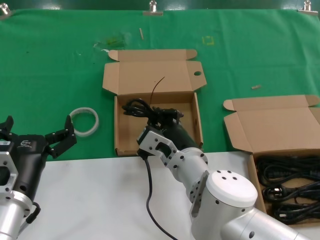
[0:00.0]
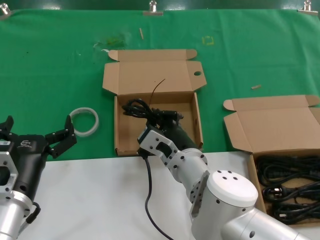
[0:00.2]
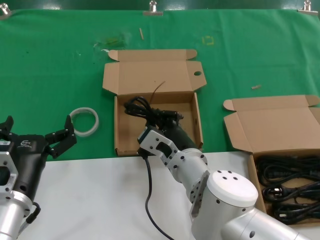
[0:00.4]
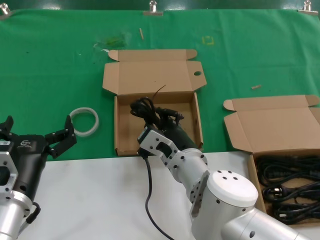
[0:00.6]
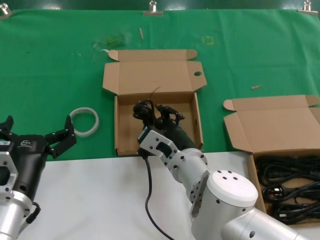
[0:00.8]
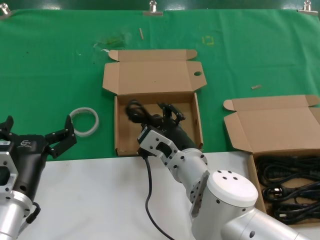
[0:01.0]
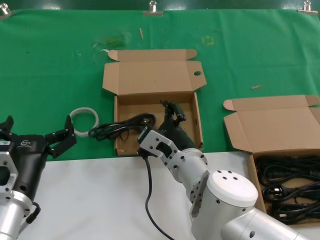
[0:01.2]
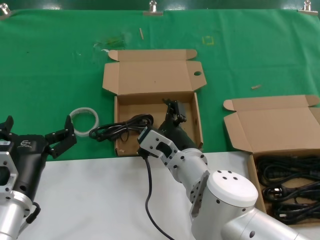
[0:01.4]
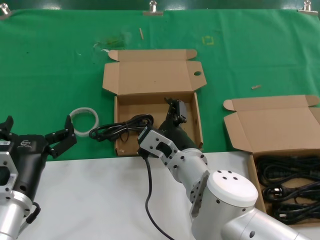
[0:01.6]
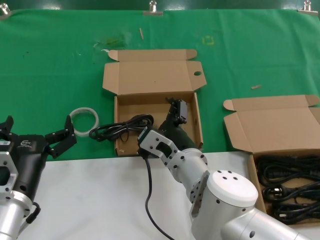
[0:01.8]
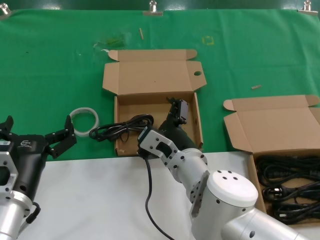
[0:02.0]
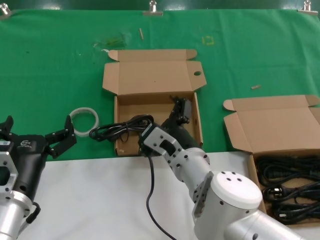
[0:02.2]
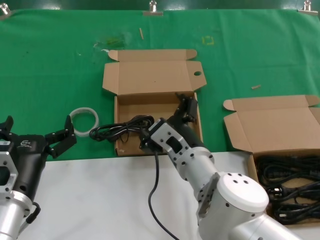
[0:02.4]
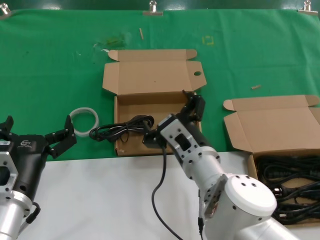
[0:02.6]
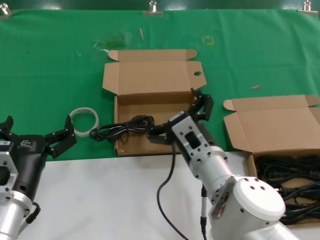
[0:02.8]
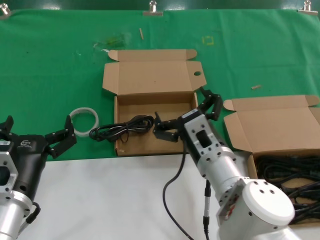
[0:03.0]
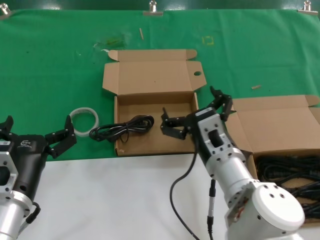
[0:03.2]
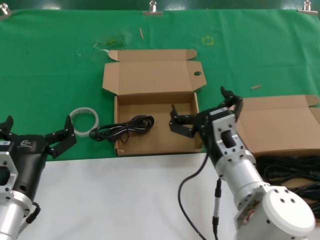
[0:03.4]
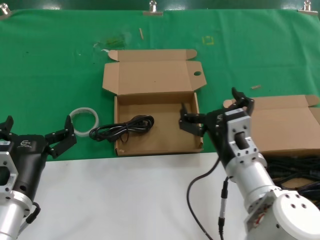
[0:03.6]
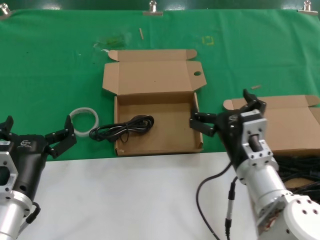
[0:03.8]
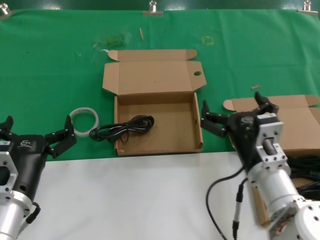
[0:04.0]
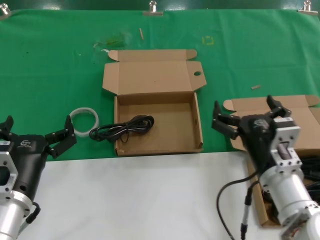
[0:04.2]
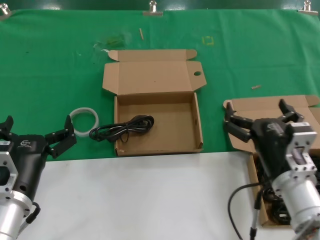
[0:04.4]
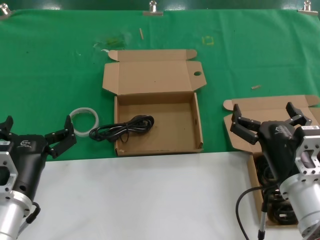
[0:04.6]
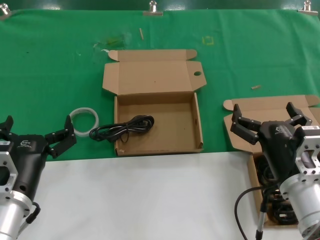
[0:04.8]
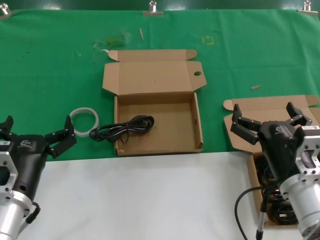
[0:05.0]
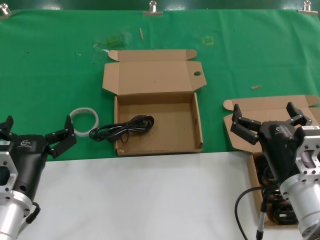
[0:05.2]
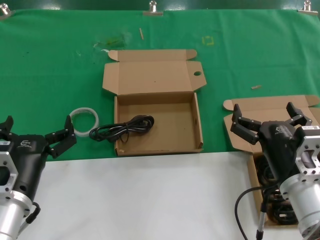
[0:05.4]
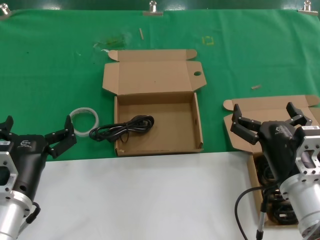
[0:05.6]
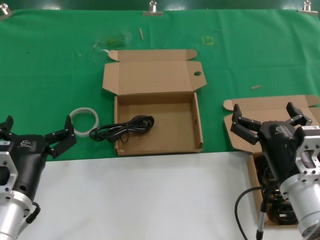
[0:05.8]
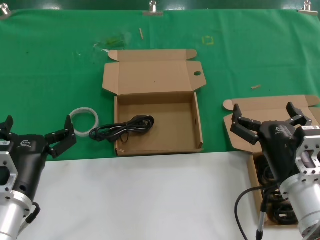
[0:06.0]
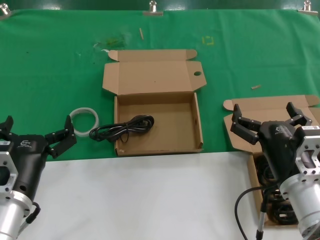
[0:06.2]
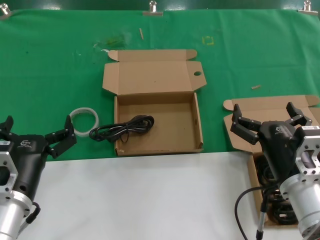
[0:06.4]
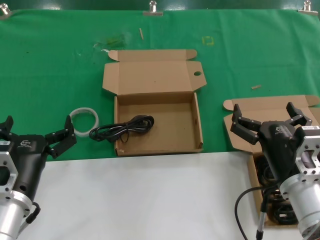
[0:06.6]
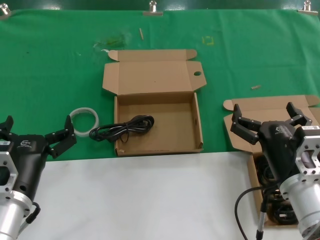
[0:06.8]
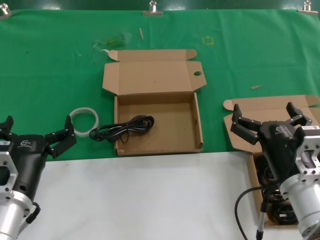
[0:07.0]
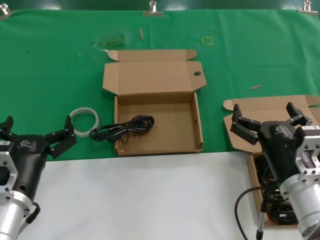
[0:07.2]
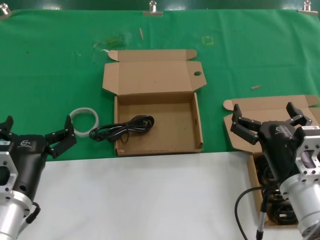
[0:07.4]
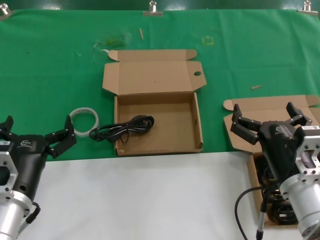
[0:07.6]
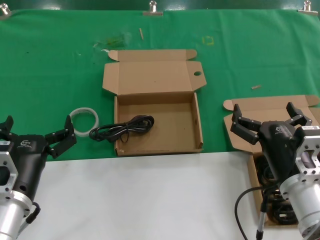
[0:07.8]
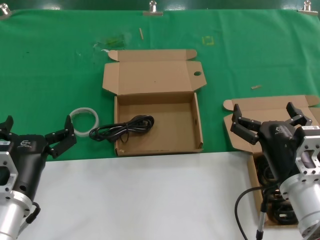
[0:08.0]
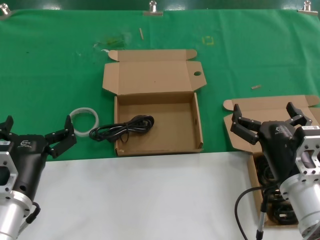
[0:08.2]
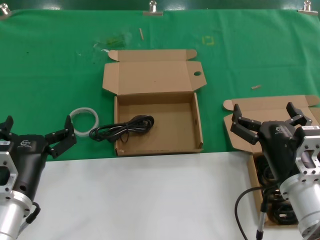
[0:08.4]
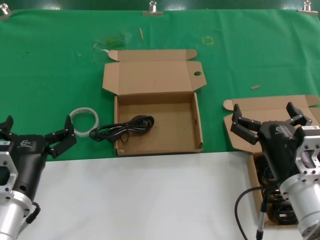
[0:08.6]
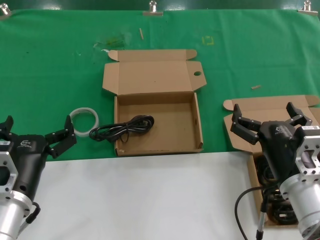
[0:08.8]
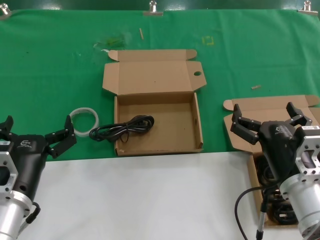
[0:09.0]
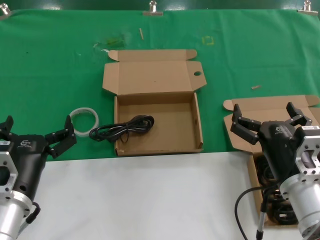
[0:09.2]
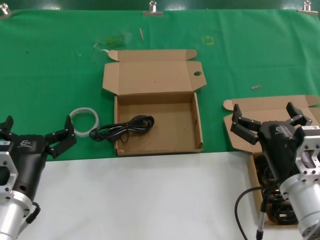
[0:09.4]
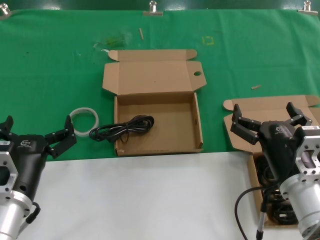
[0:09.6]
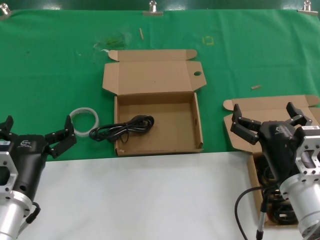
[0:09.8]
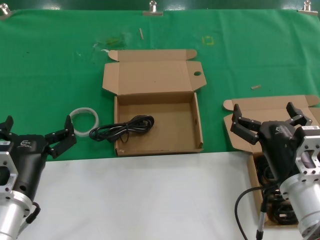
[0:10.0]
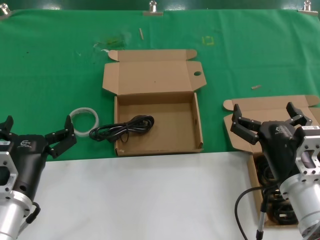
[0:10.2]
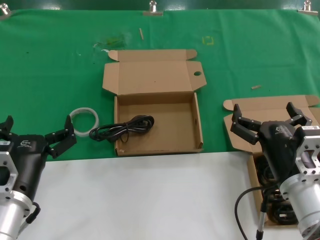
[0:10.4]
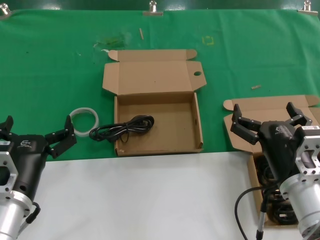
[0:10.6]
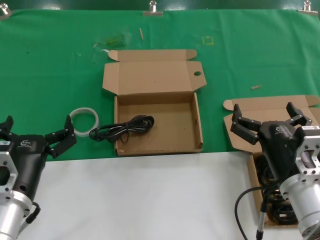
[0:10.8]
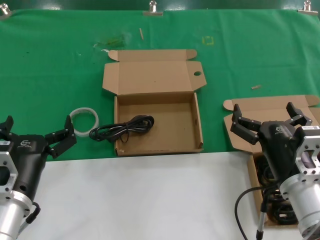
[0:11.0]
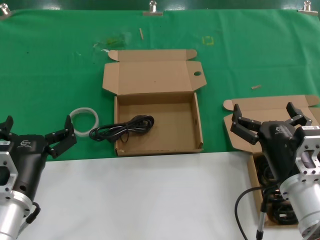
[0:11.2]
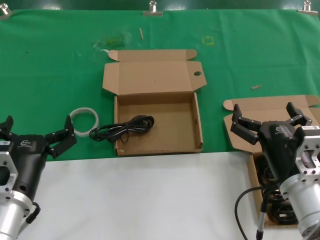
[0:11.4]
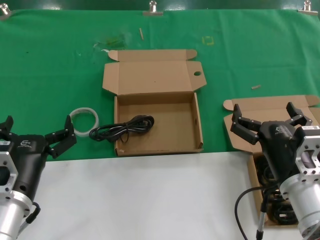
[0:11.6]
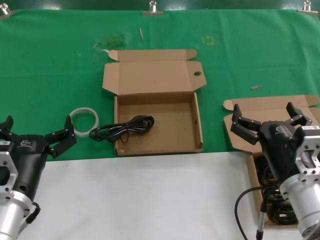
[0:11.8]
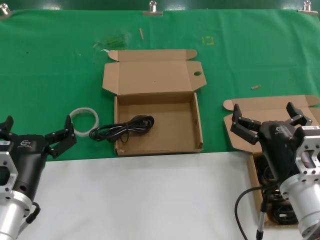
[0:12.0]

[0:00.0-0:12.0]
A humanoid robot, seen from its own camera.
Task of the whole recording: take the parts from the box containing them and put them into an empty box.
0:00.0 to 0:01.6: Neither hand changes place.
0:03.0 to 0:04.4: The right hand travels to the right by roughly 10 cm.
0:04.4 to 0:06.0: The hands make only small movements.
0:06.0 to 0:12.0: Both hands stay put.
